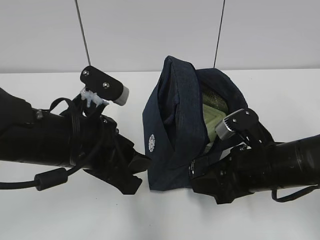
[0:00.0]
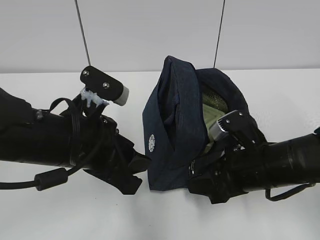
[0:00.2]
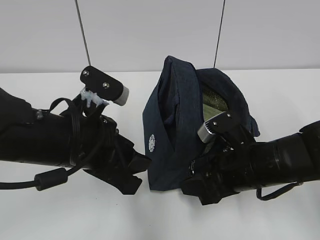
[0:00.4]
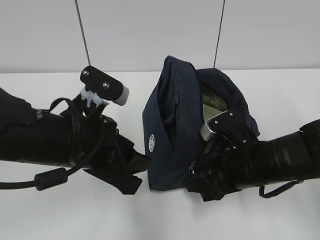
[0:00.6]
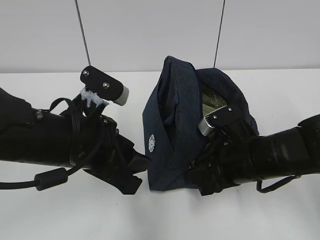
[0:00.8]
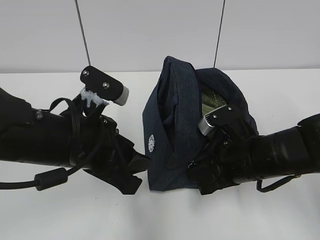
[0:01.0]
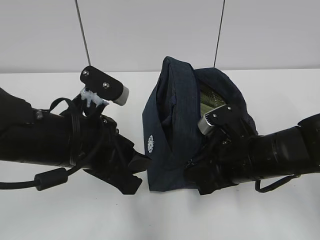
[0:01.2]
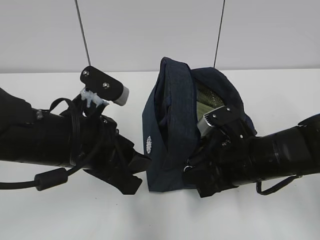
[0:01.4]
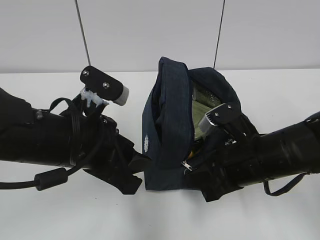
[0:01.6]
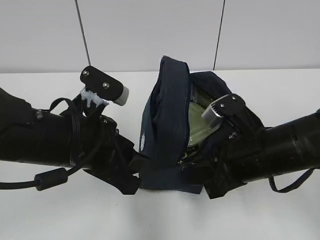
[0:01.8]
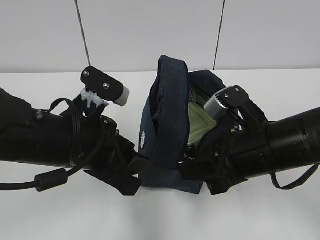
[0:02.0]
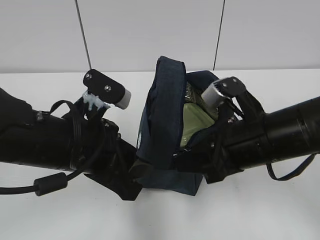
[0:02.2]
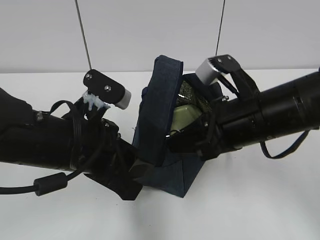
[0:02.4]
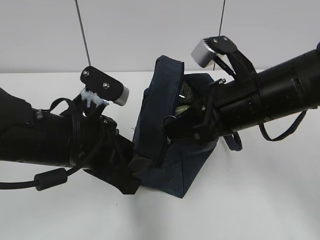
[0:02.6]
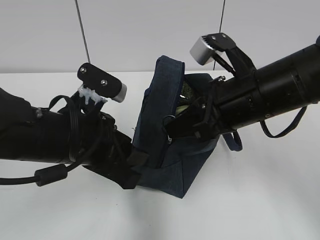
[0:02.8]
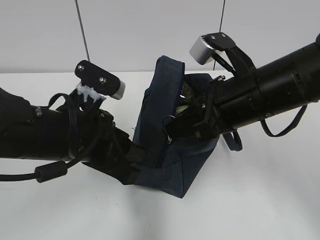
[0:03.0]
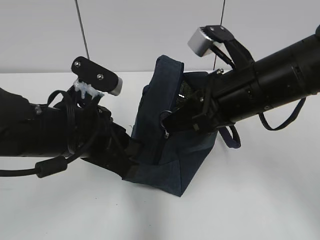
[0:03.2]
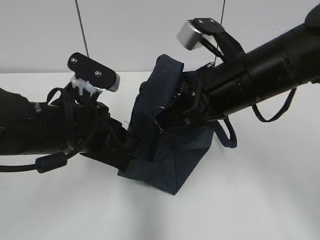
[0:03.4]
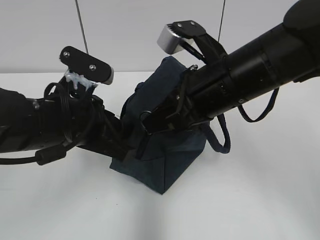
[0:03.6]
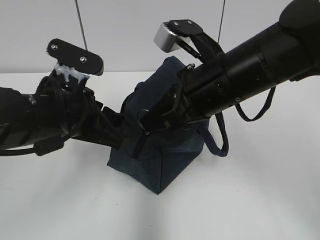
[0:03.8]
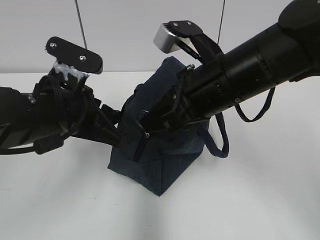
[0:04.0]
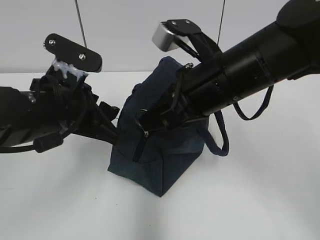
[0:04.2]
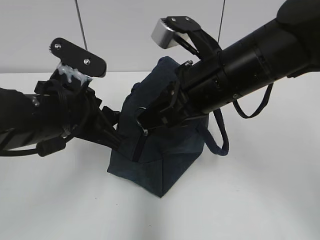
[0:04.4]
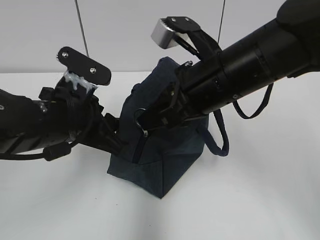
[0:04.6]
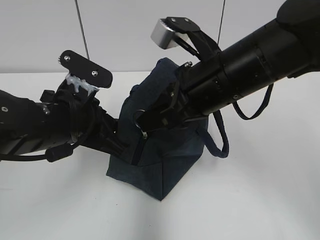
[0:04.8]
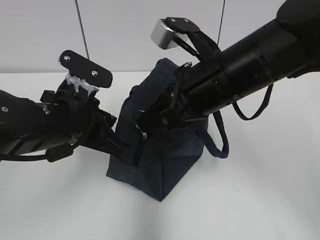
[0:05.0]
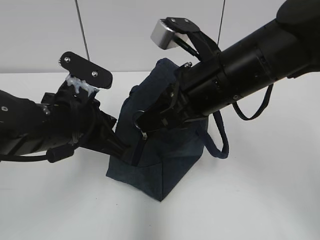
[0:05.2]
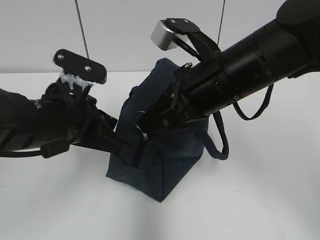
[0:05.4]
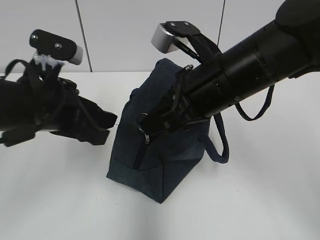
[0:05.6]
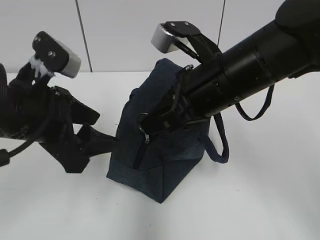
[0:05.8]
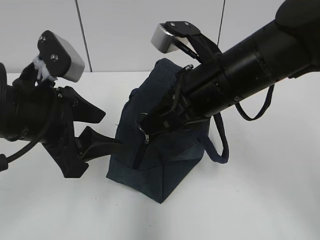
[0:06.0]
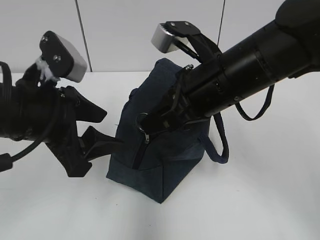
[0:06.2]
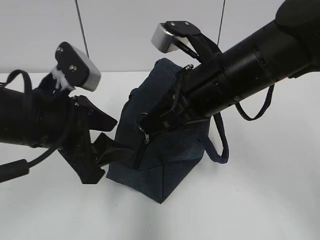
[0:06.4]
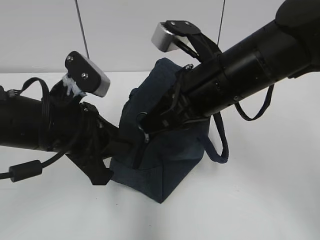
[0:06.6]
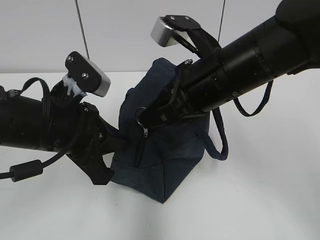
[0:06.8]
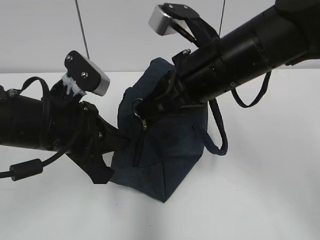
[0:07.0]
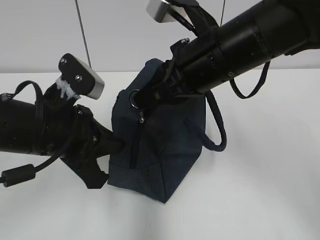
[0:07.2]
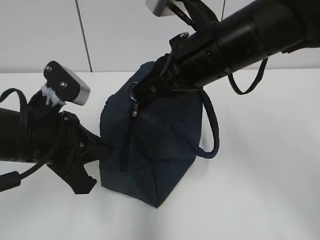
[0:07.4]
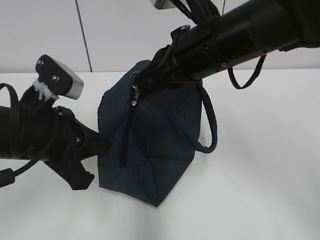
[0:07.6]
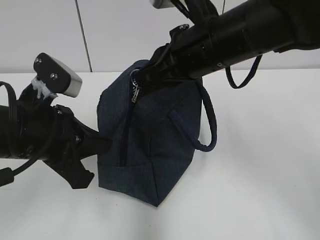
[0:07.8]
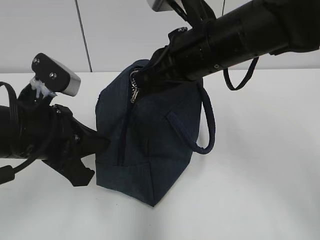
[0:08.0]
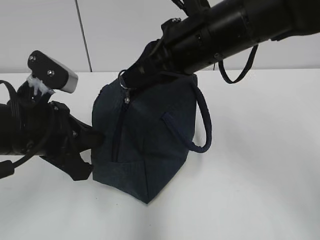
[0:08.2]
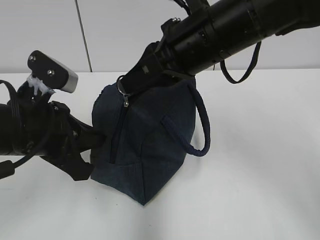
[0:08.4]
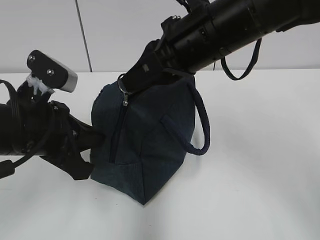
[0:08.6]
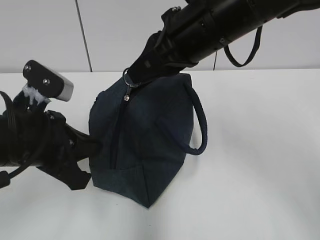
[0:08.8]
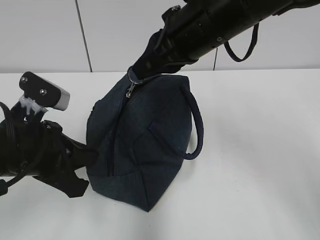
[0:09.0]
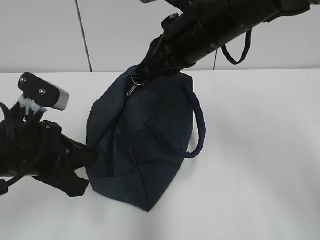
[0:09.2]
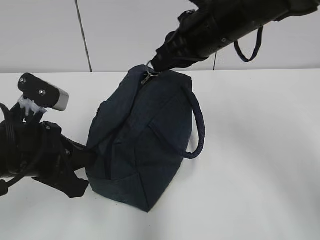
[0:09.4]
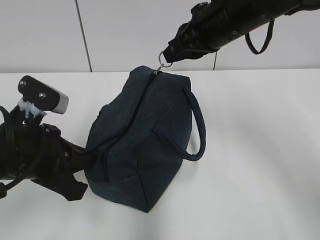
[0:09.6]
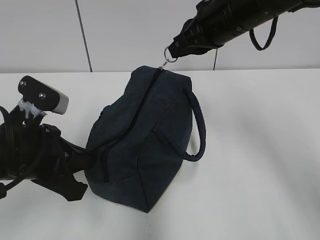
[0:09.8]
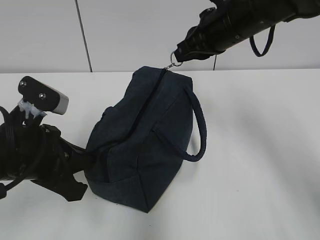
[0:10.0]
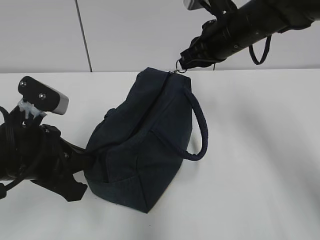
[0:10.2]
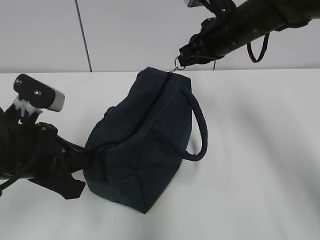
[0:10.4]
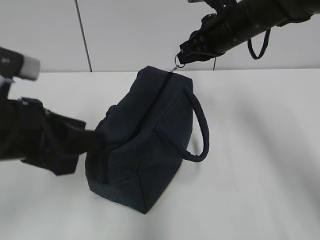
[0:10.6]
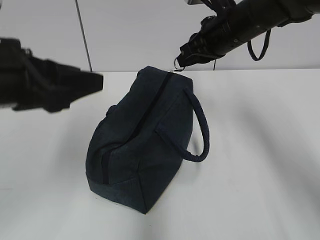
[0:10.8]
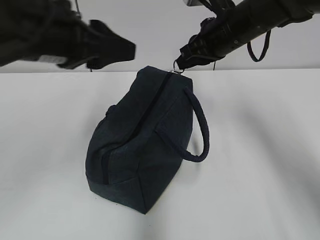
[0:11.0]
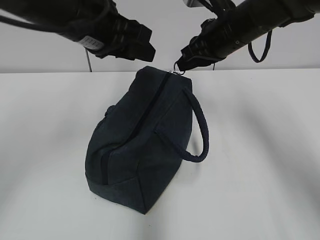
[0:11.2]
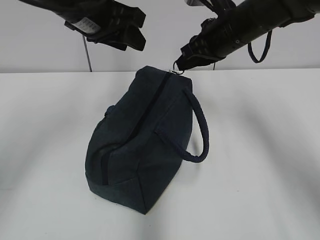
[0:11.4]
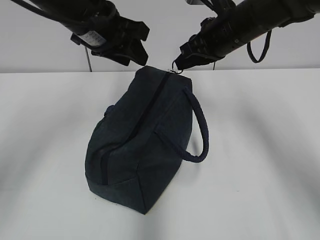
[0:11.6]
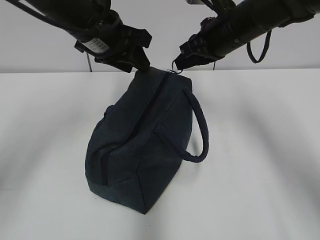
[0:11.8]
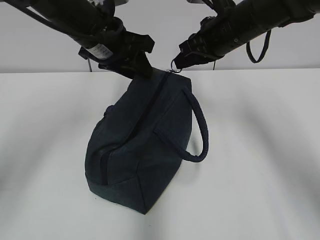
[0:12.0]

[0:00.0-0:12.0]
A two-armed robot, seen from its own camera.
0:00.0 to 0:01.6: The right gripper closes its fingers.
0:01.6 to 0:03.0: The right gripper moves upward, about 10 cm.
0:04.4 to 0:06.0: The left gripper closes, then reopens.
0:06.0 to 0:07.6: The left gripper closes up.
0:09.0 to 0:10.4: The right gripper travels forward and to the right by approximately 10 cm.
0:10.4 to 0:12.0: The left gripper goes about 20 cm forward and upward, and opens its fingers.

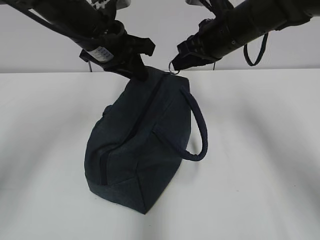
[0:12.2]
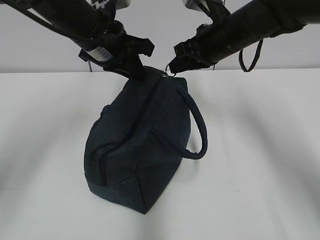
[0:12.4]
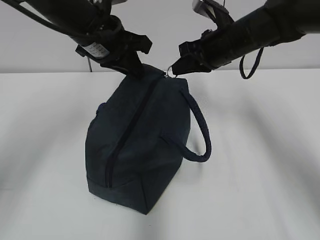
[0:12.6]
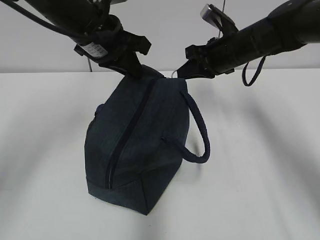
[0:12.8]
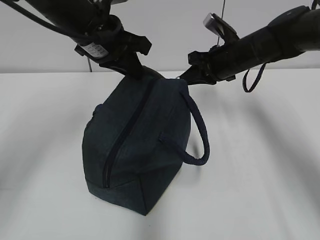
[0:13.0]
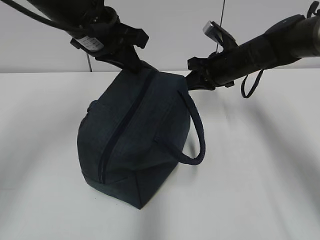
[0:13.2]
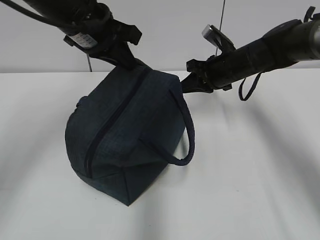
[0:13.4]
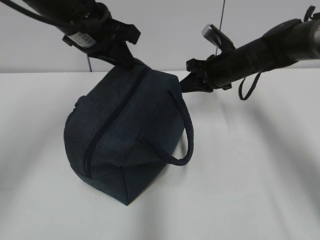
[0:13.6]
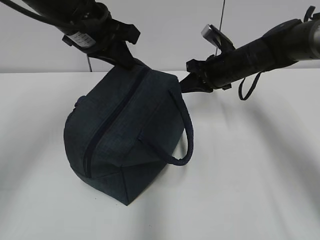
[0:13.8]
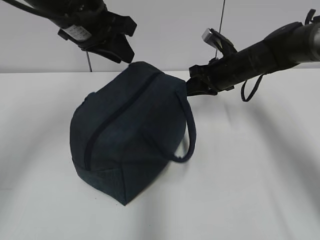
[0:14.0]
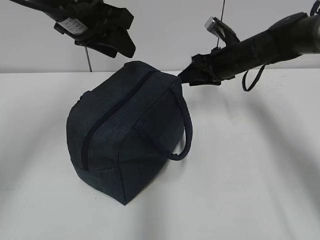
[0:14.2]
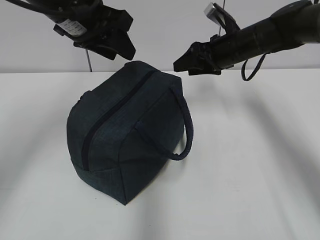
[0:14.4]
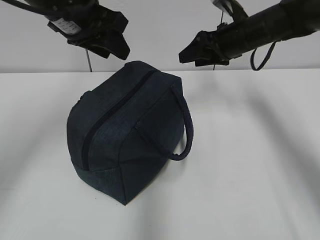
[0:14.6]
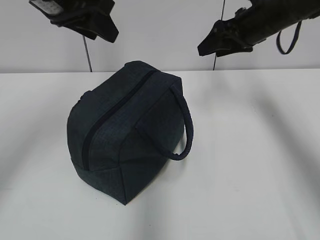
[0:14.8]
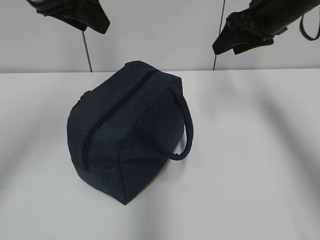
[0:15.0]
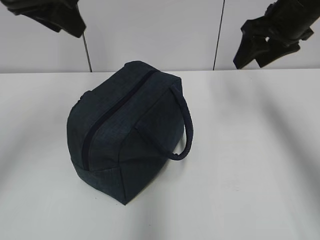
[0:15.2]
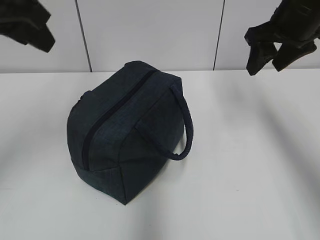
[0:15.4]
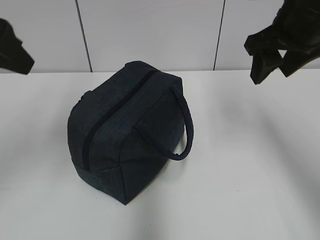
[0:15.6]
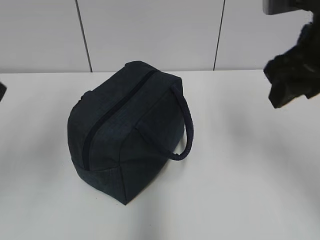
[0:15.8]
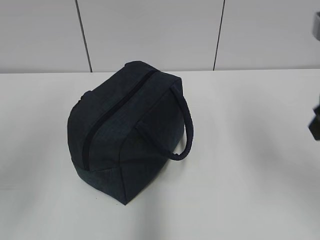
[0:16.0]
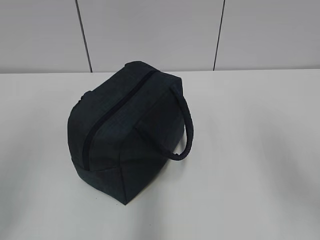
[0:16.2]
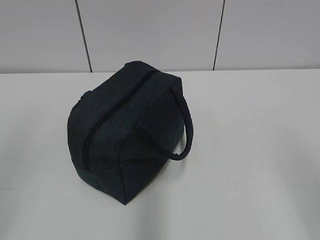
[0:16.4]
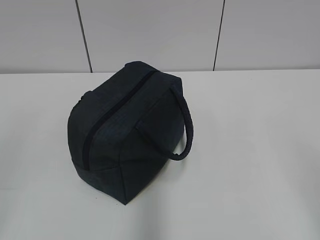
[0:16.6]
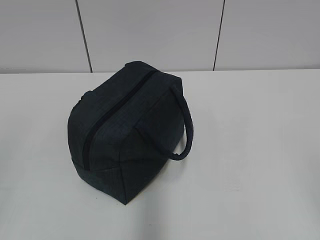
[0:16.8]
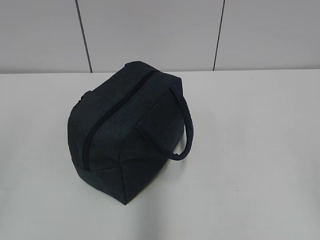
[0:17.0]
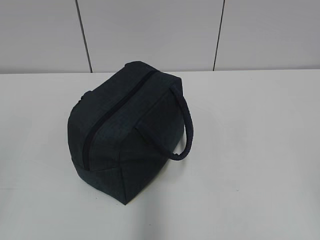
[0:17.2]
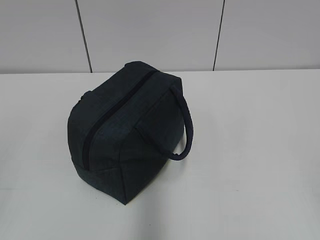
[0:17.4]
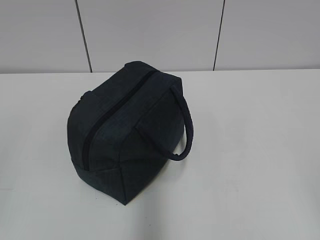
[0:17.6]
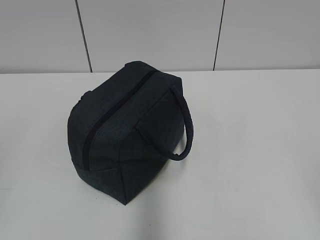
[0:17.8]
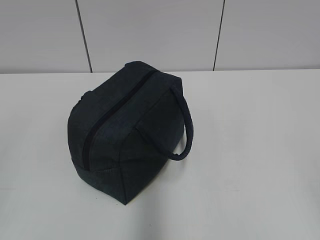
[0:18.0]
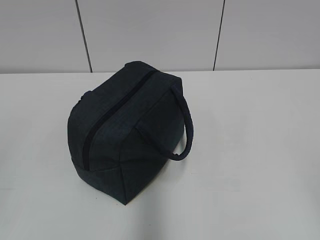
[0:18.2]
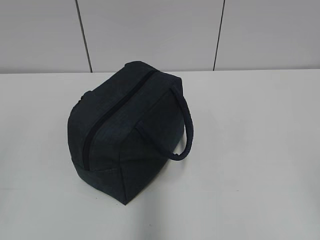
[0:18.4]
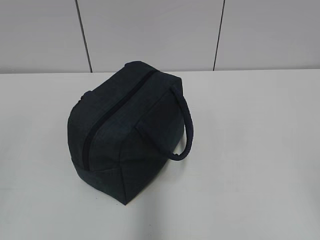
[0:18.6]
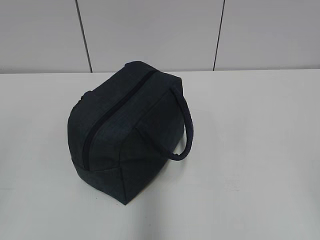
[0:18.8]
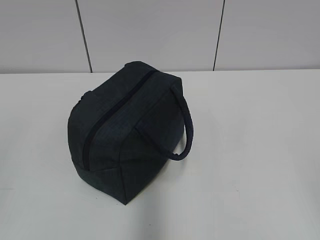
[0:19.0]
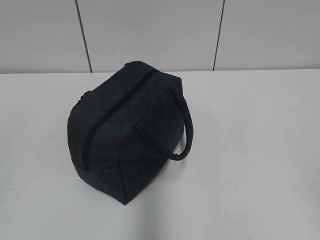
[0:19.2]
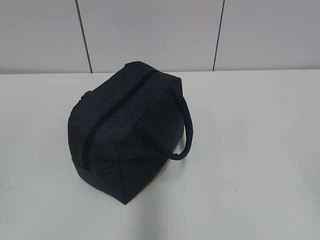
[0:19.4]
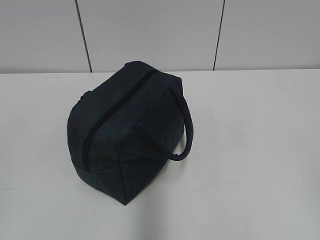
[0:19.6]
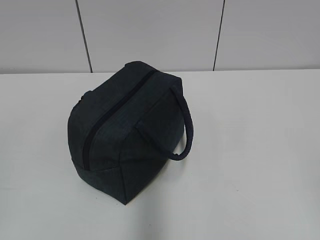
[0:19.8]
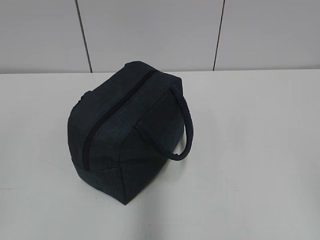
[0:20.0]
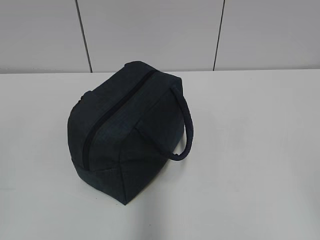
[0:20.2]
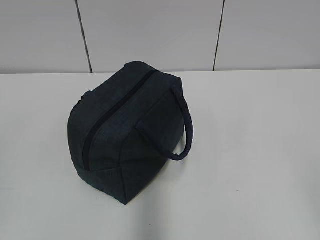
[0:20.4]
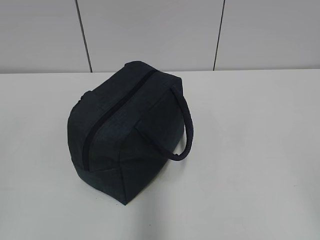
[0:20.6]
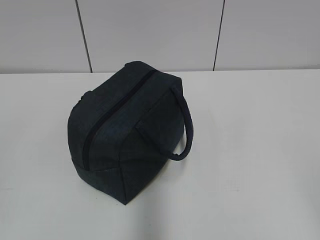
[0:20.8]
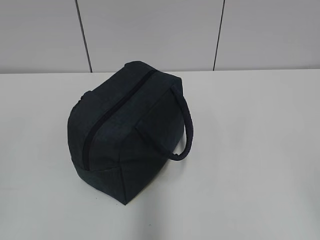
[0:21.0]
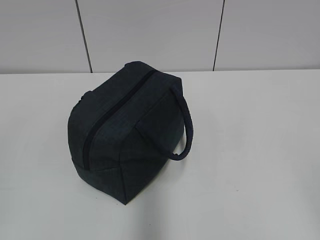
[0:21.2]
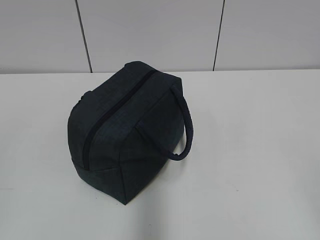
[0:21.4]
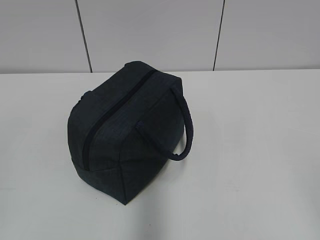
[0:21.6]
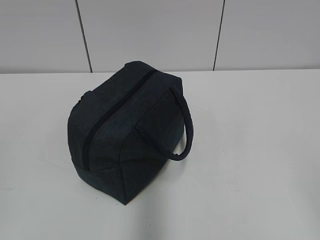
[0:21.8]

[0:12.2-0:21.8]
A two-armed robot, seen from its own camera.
0:12.2 to 0:13.8: The right gripper moves downward, about 10 cm.
0:13.8 to 0:15.4: The right gripper is displaced upward and backward by roughly 15 cm, and opens its fingers; the left gripper shifts roughly 15 cm backward, to the left and upward, and opens.
0:15.4 to 0:17.0: The left gripper heads backward and to the left, covering approximately 30 cm. The right gripper is displaced backward by roughly 40 cm.
0:20.2 to 0:21.8: Neither gripper changes place.

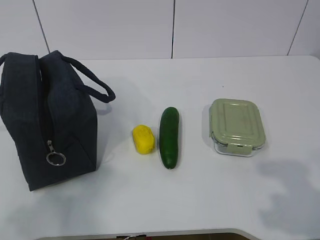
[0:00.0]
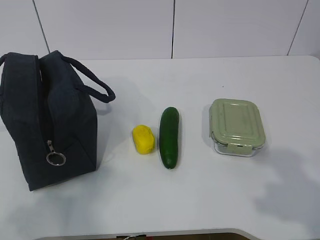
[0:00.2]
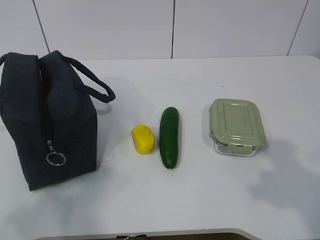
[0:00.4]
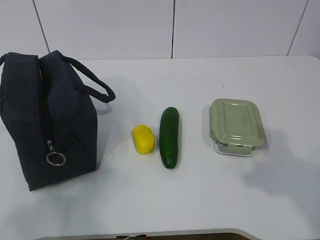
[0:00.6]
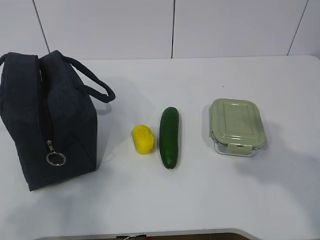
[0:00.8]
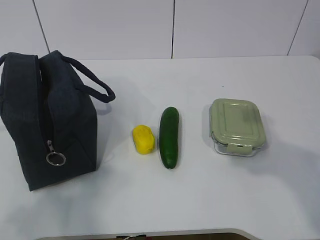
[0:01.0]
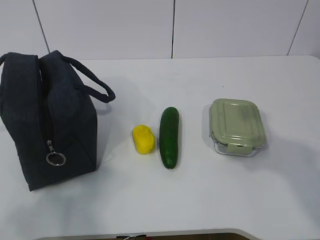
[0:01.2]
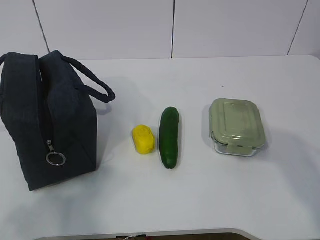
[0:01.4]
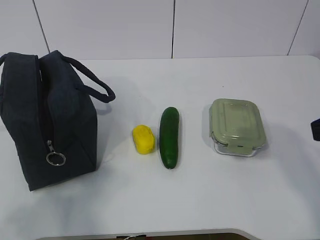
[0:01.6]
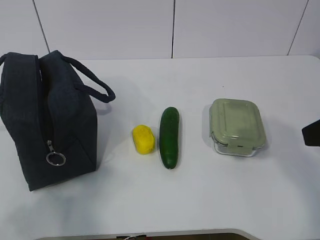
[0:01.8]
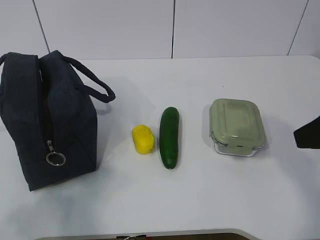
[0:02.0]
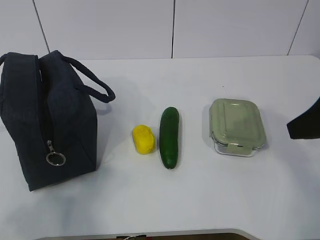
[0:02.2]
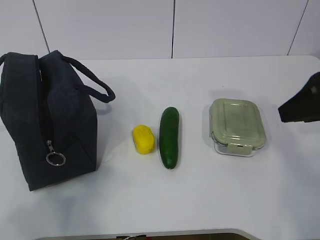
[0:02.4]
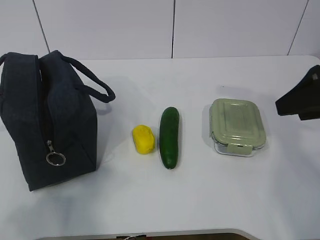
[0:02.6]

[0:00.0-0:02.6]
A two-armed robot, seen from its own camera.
0:00.0 to 0:01.2: The right gripper goes about 10 cm forward.
0:01.2 to 0:02.6: The right gripper travels forward by about 10 cm.
